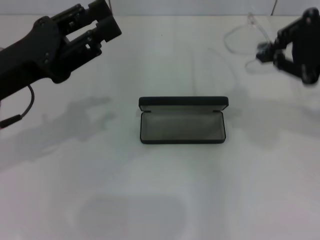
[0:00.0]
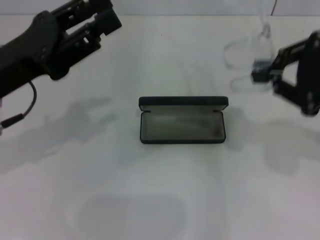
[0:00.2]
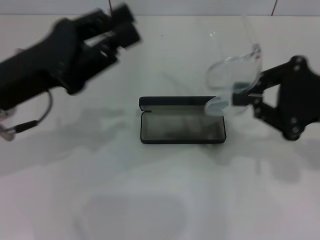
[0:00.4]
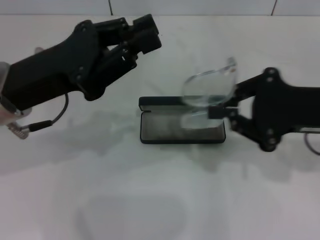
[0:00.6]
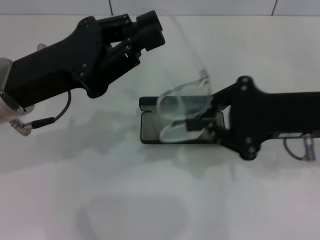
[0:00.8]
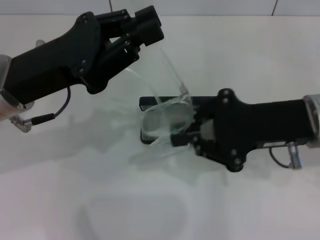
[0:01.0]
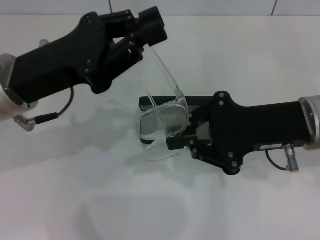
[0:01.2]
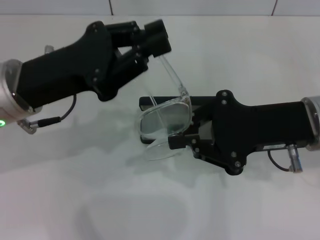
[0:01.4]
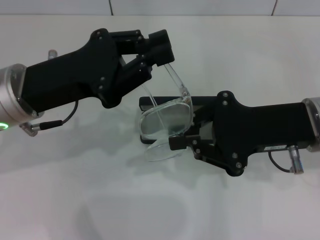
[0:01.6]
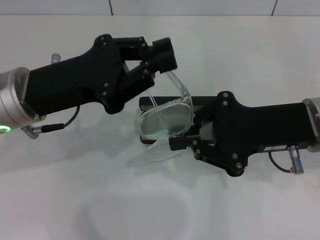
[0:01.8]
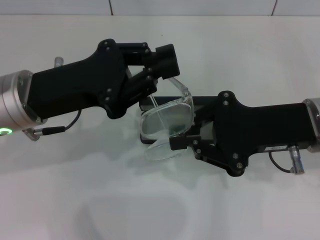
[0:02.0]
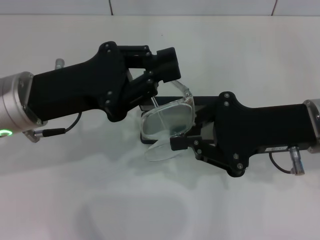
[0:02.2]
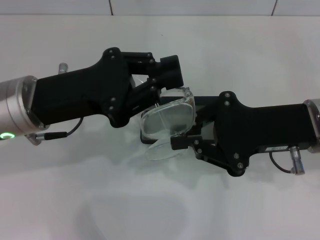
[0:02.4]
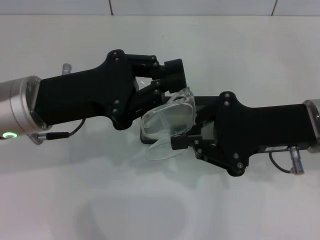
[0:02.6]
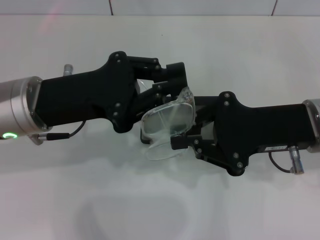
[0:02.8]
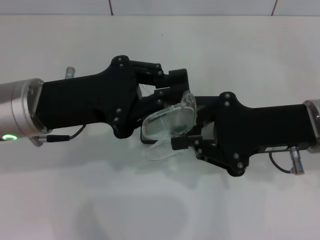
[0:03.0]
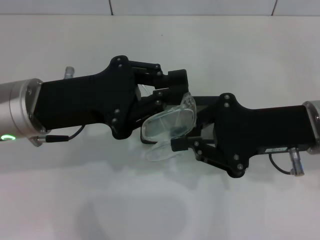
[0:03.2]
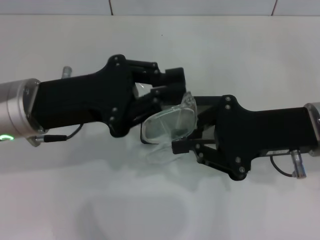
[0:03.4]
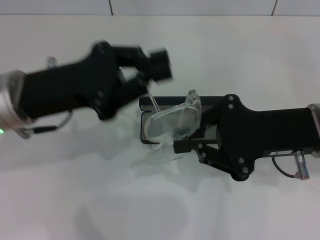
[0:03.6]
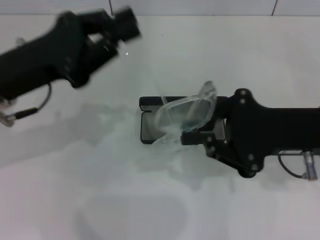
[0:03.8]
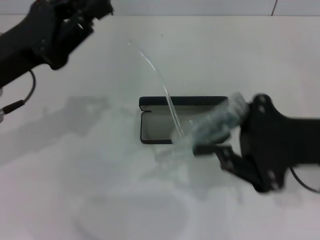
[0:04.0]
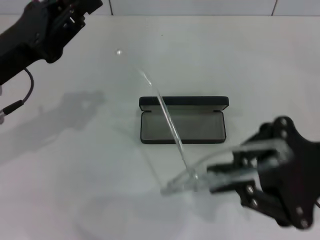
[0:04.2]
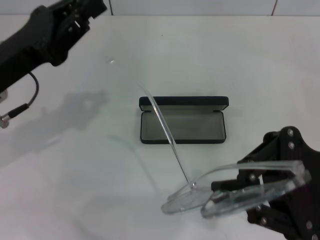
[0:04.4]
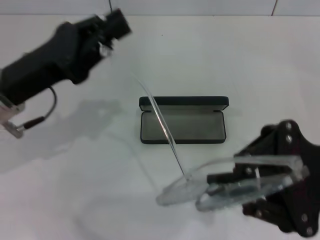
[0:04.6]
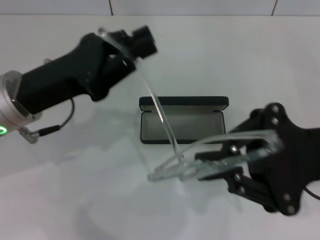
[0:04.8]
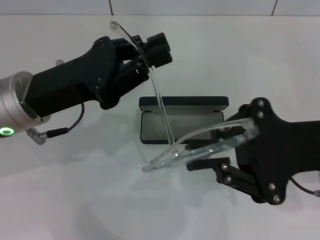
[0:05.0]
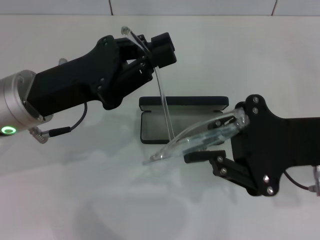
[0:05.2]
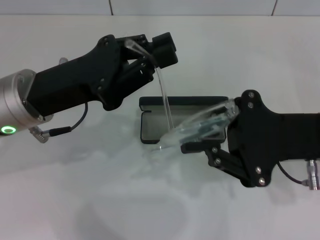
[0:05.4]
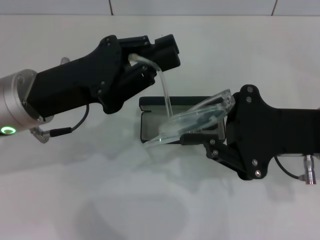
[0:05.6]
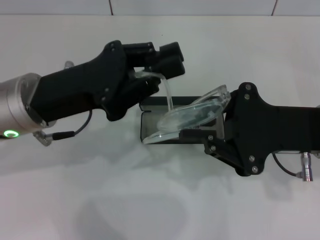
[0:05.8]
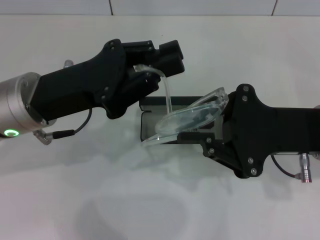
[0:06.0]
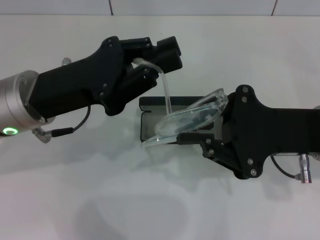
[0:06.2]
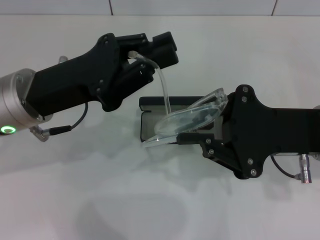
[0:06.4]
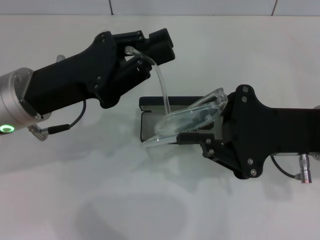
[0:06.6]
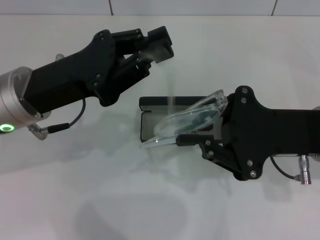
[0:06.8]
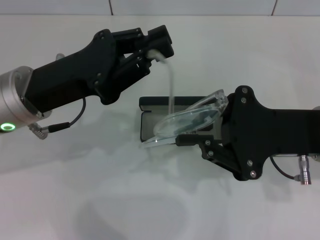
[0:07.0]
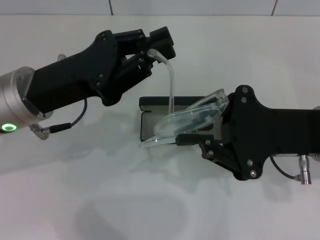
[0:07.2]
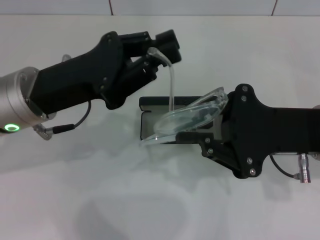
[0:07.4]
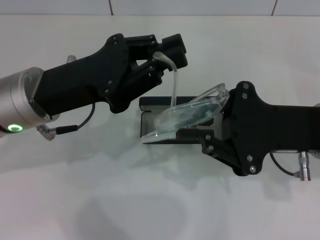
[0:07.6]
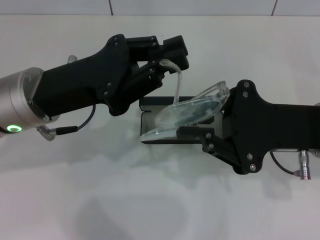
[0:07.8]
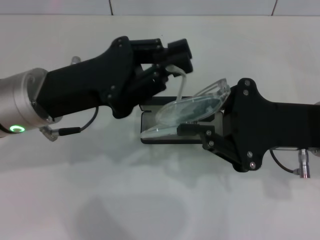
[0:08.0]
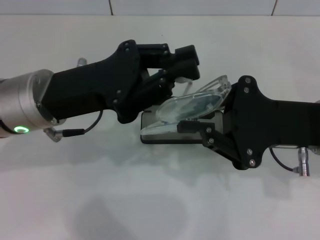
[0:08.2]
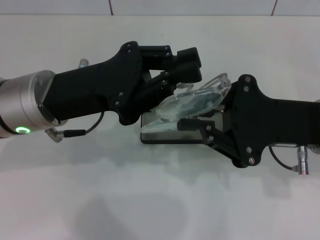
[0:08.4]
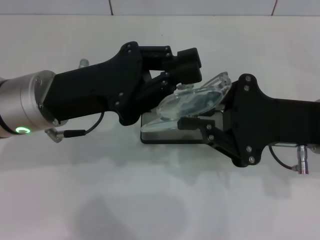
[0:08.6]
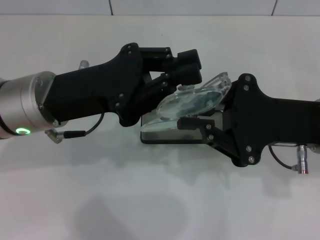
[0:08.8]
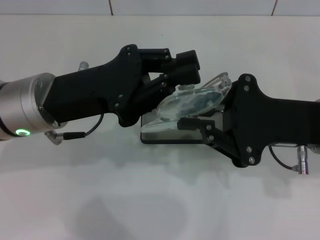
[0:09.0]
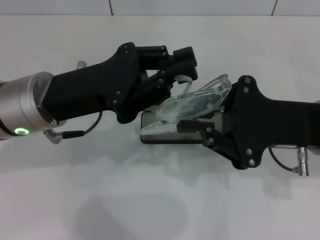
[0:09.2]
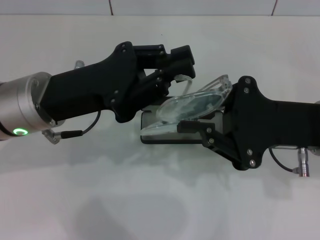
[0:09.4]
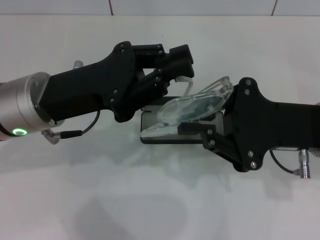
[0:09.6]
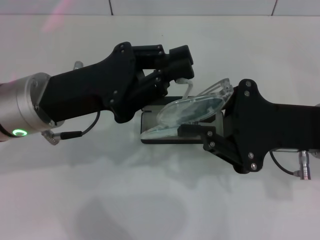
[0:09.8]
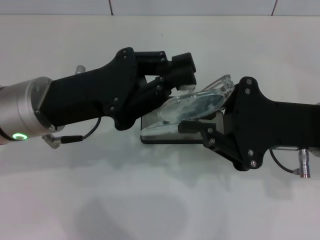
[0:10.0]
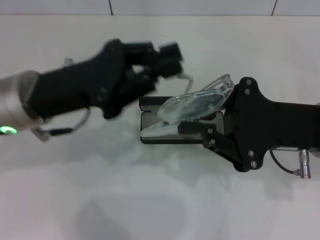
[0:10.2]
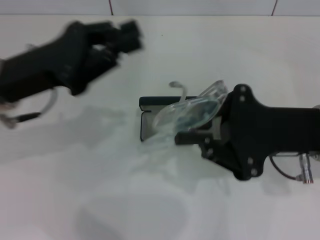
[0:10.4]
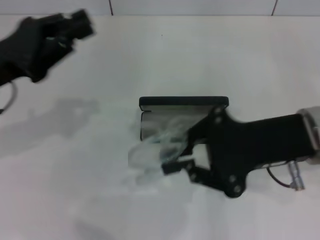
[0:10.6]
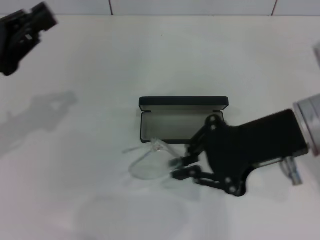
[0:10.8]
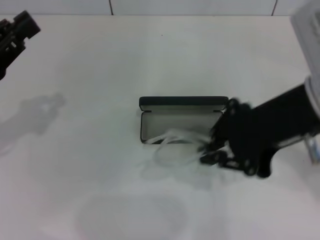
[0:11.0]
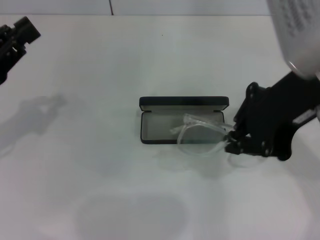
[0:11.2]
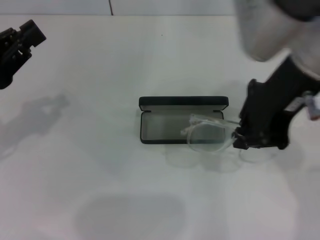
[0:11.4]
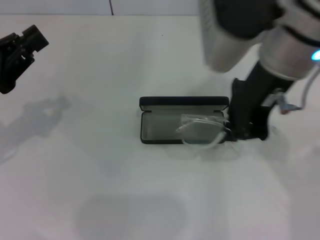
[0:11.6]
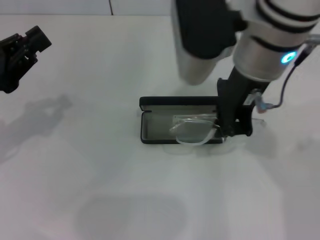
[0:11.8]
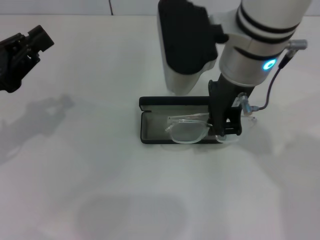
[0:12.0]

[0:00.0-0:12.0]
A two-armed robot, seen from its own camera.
Step, 0:00.0 to 0:09.0: Fold the frame with your left hand.
0:00.0 to 0:01.6: The right gripper goes about 10 cm downward and to the left, while the left gripper closes.
0:01.6 to 0:03.0: The grippers stay close to where they were, moving slightly.
0:03.0 to 0:04.4: The right gripper ends up some 5 cm from where it was. Meanwhile the left gripper goes about 5 cm to the left.
0:04.4 to 0:06.0: The left gripper goes some 5 cm to the right.
0:06.0 to 0:07.6: Both grippers stay about where they are.
0:07.6 to 0:09.0: Both grippers stay about where they are.
0:09.0 to 0:10.4: The left gripper goes approximately 5 cm to the left.
0:10.4 to 0:12.0: The left gripper moves to the left, approximately 5 cm. The right gripper travels to the left, upward and forward by approximately 15 cm.

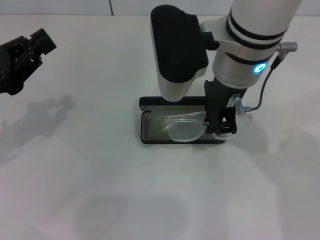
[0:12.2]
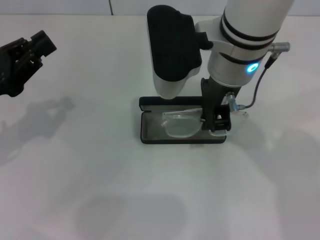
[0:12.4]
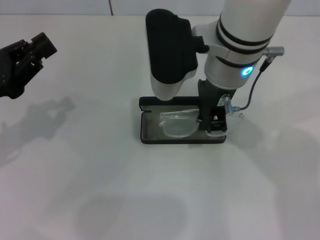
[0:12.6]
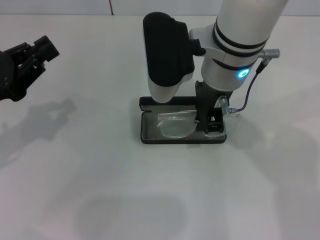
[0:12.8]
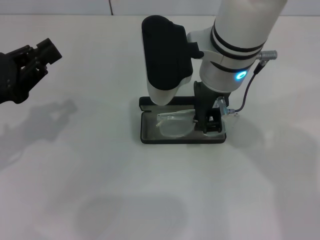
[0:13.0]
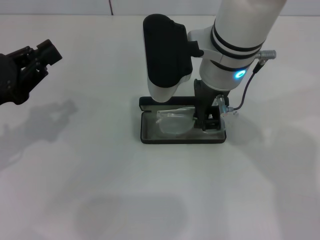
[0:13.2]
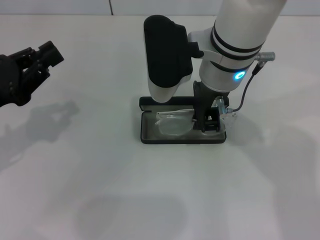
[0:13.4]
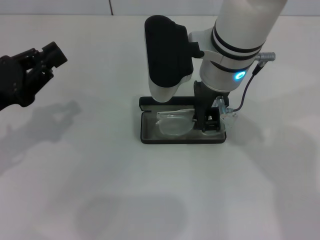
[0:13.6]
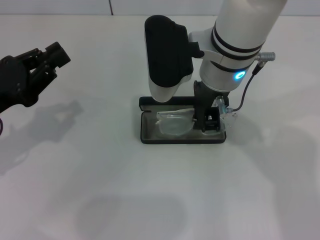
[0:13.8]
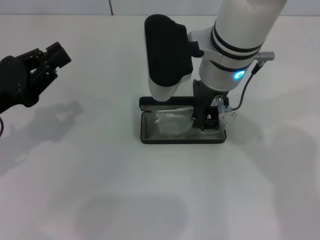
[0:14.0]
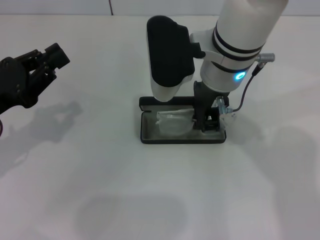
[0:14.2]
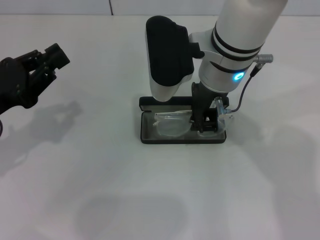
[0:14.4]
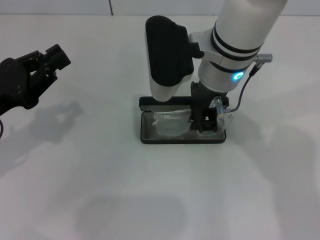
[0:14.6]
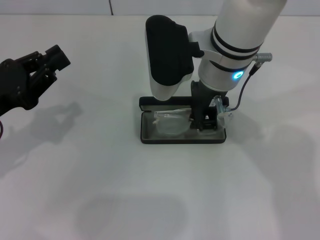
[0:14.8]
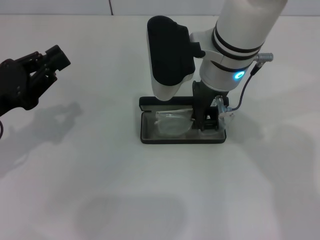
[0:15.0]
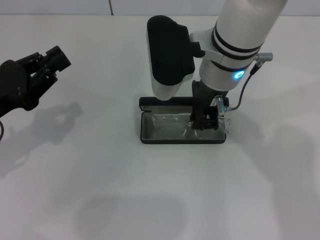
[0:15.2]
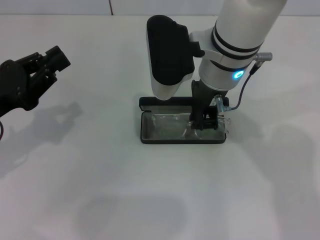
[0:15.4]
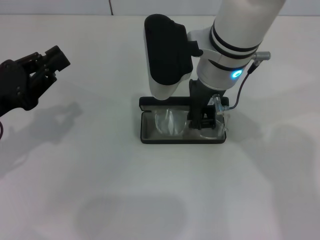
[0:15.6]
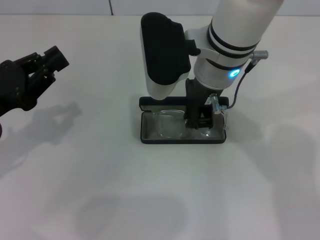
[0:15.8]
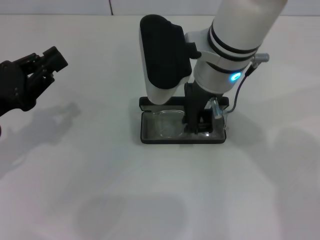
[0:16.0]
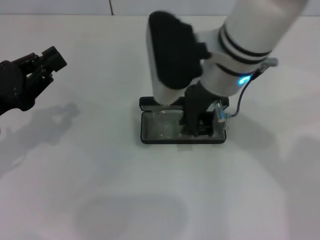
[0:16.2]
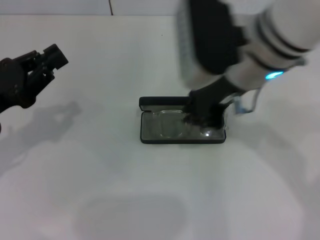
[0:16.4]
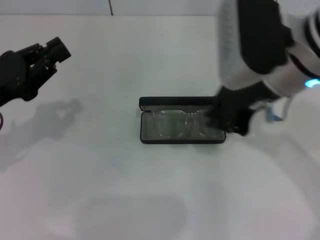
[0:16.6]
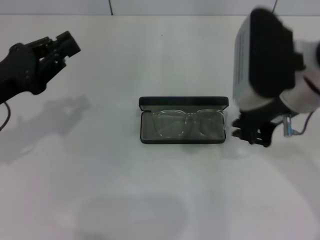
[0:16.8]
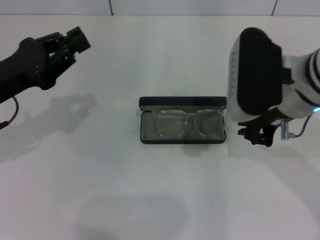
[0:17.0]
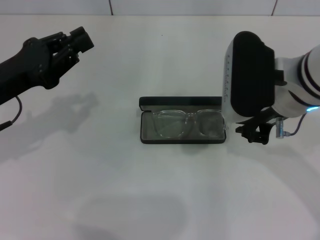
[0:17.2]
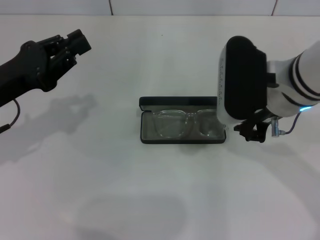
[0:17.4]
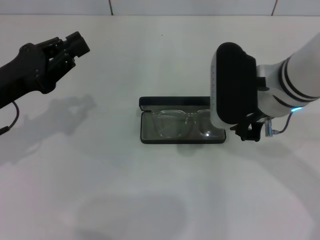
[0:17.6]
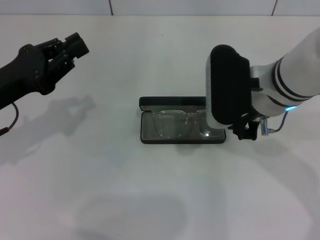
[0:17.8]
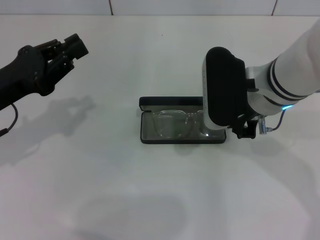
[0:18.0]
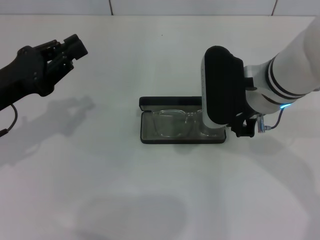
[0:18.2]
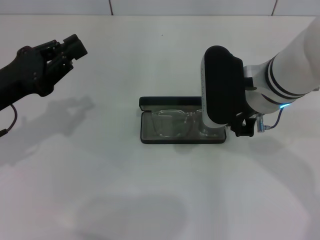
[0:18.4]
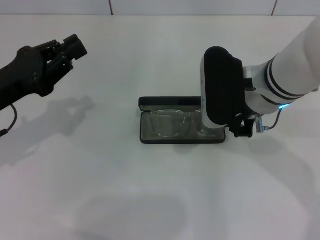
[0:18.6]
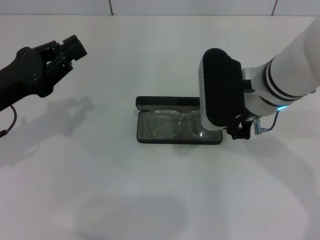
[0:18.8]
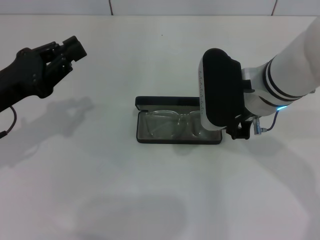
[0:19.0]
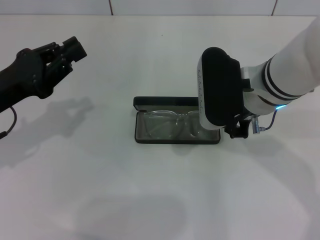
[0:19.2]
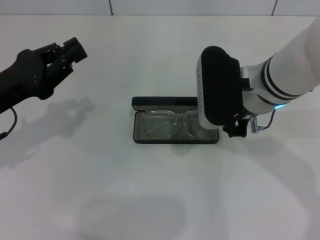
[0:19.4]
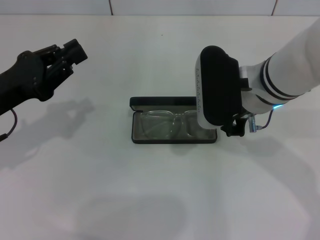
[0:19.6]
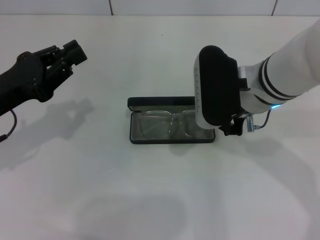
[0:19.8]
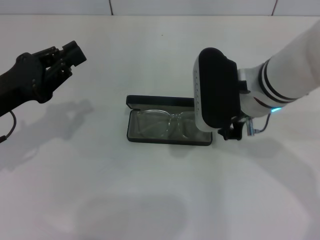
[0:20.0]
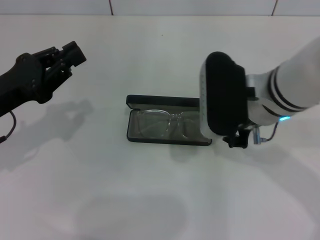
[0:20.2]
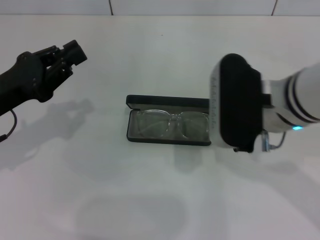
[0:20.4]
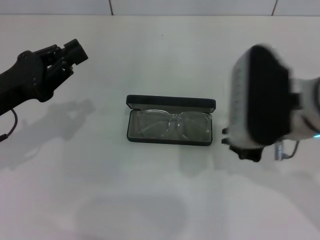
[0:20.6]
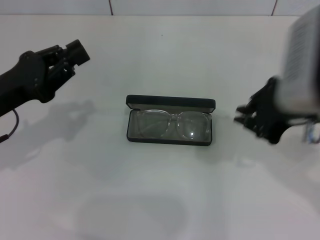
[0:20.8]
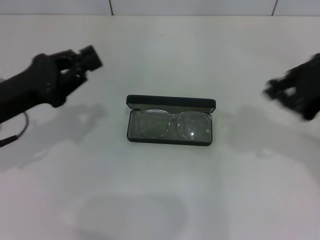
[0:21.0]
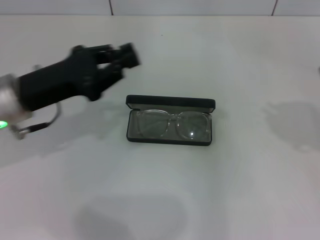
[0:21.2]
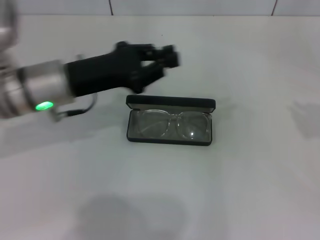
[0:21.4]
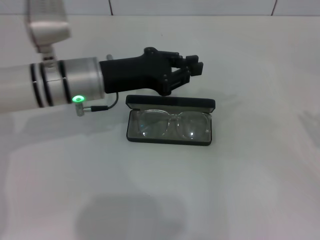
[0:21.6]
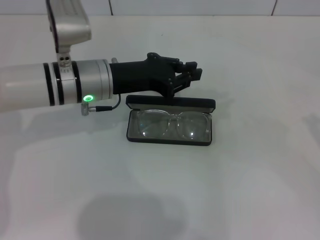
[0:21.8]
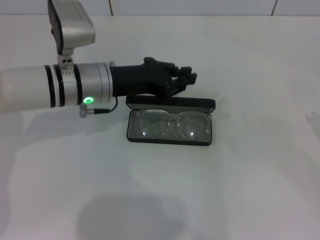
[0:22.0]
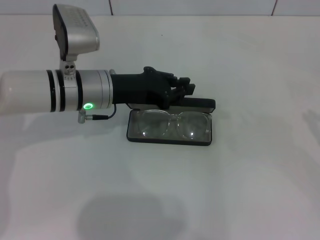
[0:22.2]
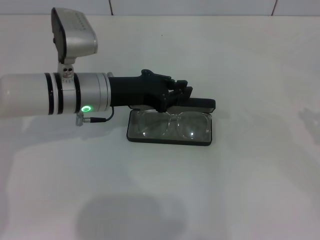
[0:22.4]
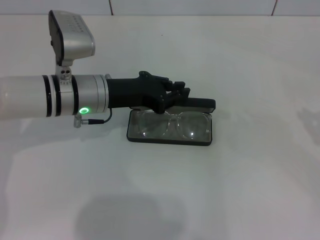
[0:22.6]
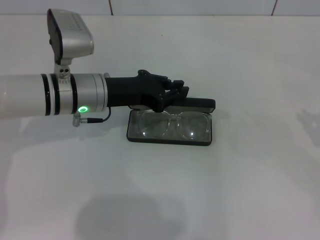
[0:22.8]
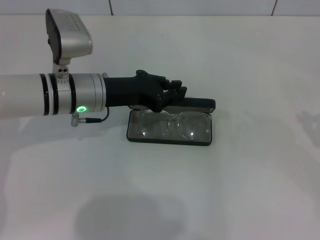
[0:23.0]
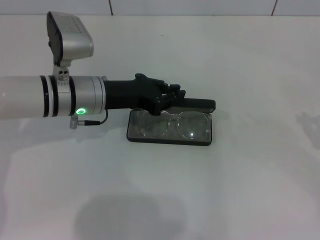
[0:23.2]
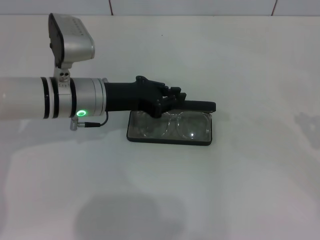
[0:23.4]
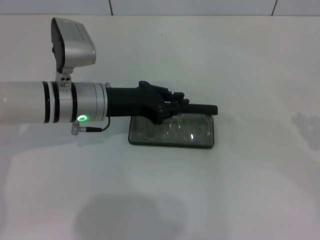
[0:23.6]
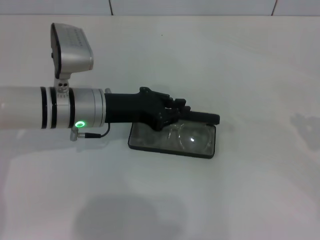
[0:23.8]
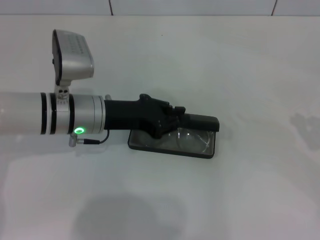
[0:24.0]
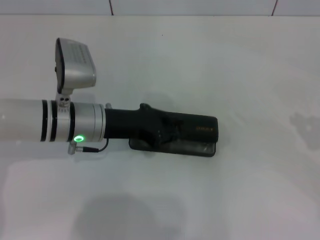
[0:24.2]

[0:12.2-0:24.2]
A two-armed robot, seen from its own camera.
Step, 0:12.2 to 0:16.4: Put the glasses into the case with your right hand.
0:12.2 to 0:13.8: There are only small adjustments of the grippers.
0:13.8 to 0:15.2: Both grippers stay put.
0:15.2 to 0:16.6: The right gripper goes approximately 10 cm to the right and backward.
0:16.6 to 0:18.2: The right gripper moves downward, some 10 cm.
0:18.2 to 0:19.8: The two grippers keep their place.
0:19.8 to 0:21.2: The left gripper goes roughly 5 cm to the right. The right gripper is displaced to the right and upward by roughly 25 cm.
0:21.2 to 0:22.6: The right gripper is displaced downward and to the right by about 15 cm, while the left gripper is displaced to the right and forward by about 10 cm.
0:22.6 to 0:24.2: The grippers stay close to where they were, moving slightly.
